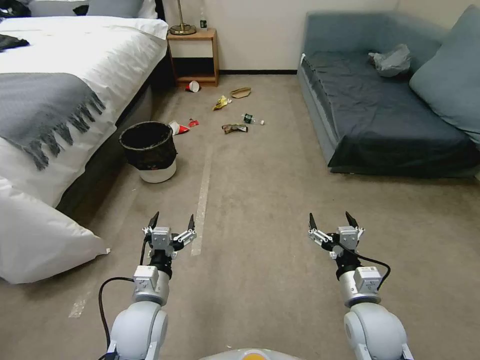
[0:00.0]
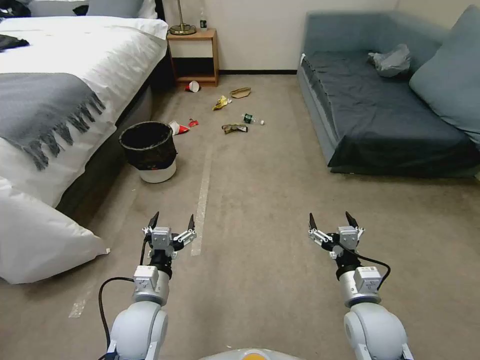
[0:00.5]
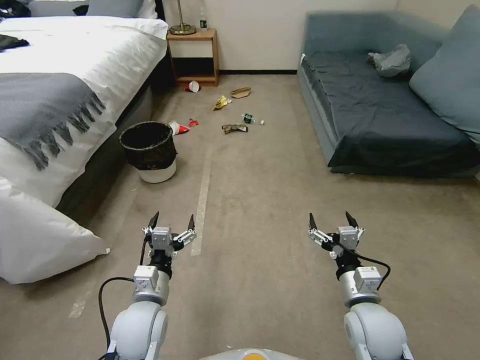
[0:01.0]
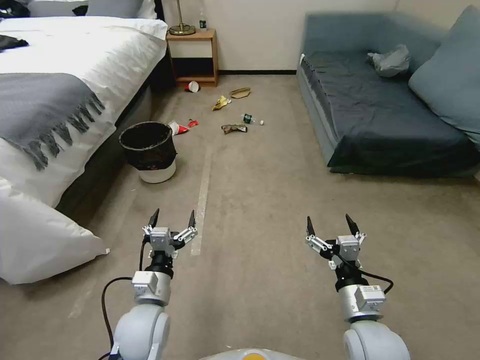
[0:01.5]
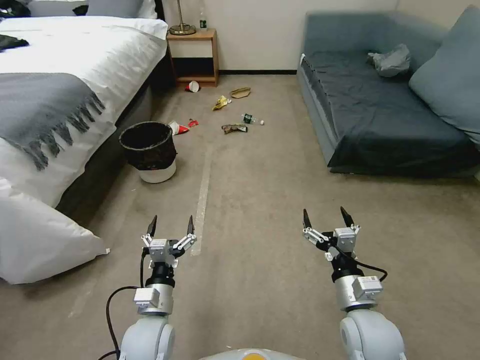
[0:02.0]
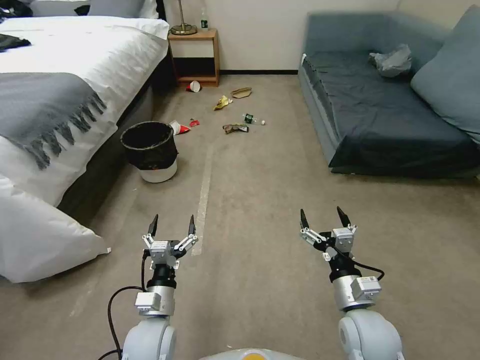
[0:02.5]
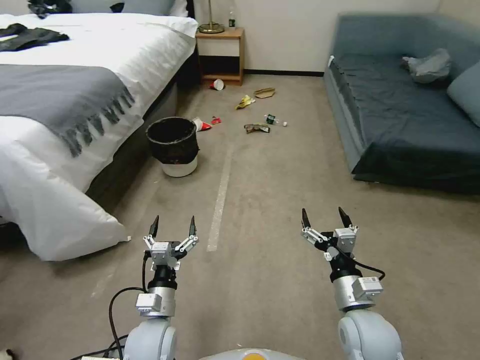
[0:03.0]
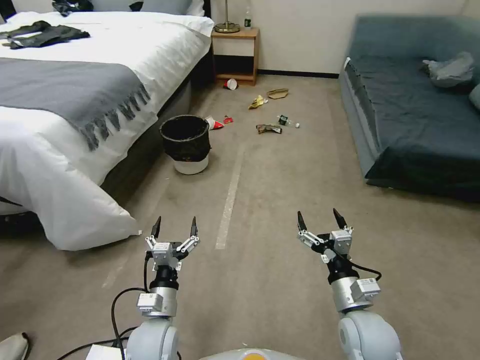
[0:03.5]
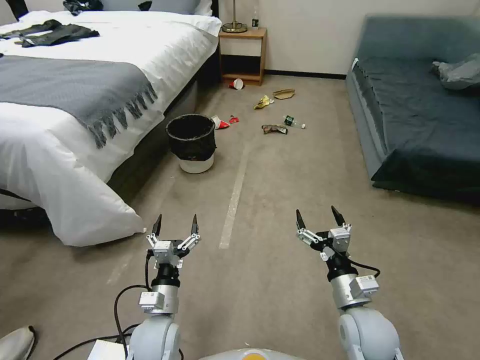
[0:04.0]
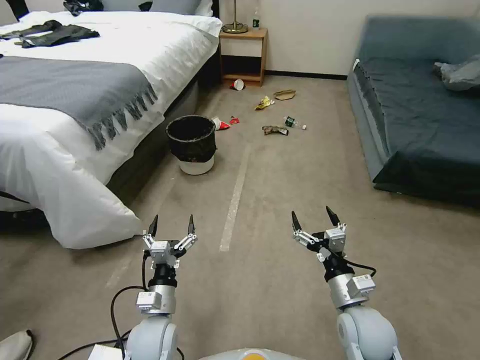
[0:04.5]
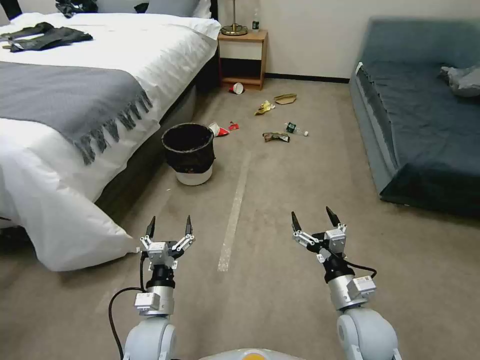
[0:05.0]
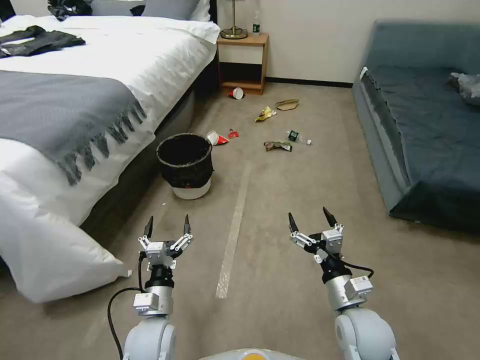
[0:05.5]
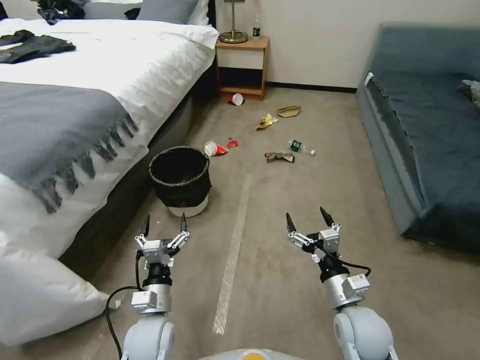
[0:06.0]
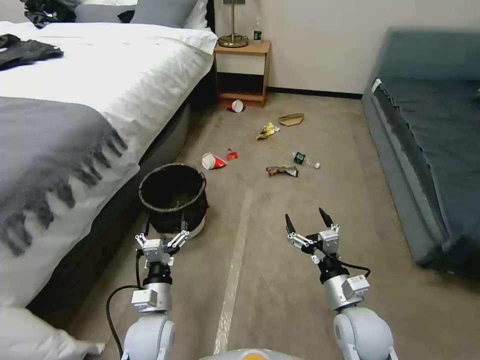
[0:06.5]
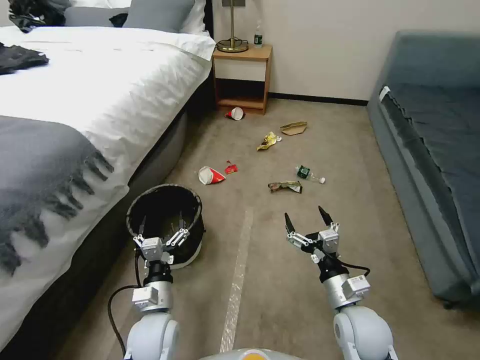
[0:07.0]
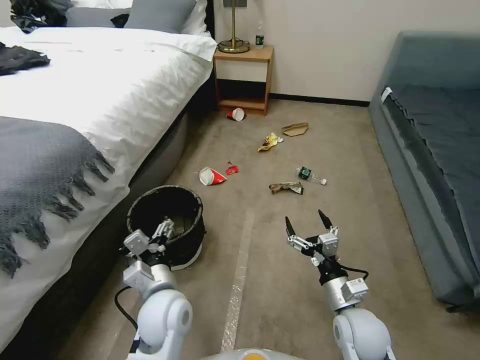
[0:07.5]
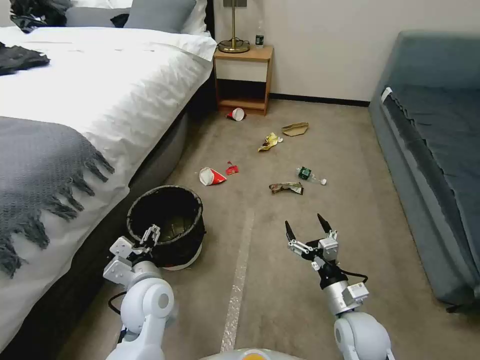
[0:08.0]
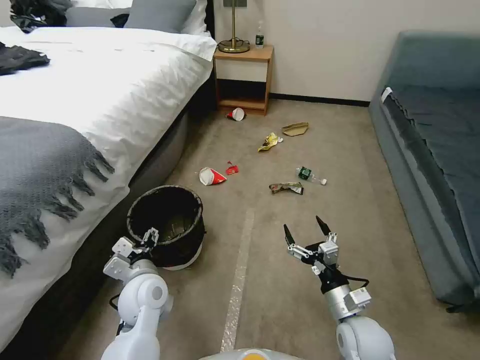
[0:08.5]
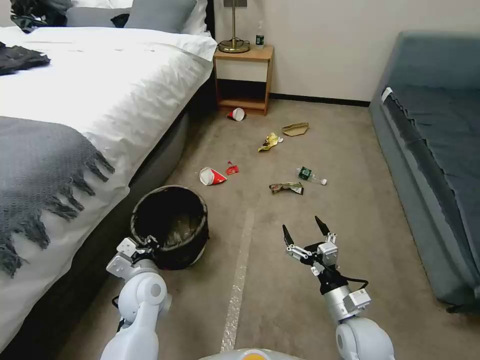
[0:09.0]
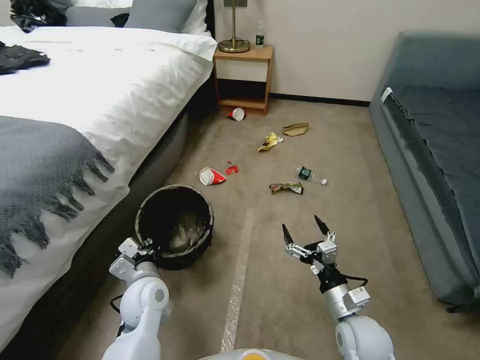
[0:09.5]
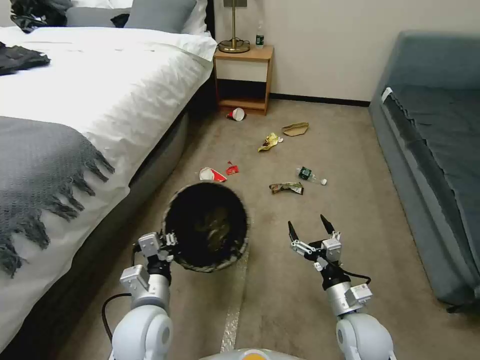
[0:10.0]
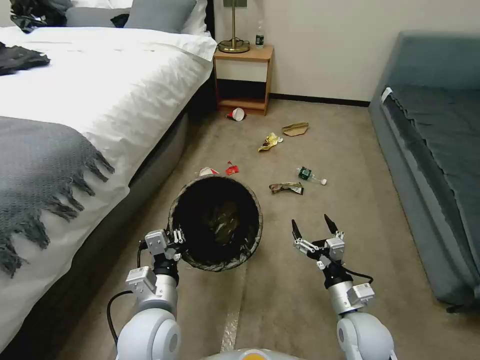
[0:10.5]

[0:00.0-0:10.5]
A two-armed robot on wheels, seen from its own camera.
Task of the whole recording: Pick up the trash can from the floor.
0:06.5 to 0:08.5: The left gripper shifts approximately 10 cm upward and forward.
0:08.5 to 0:10.5: The left gripper shifts roughly 10 cm backward, and closes up.

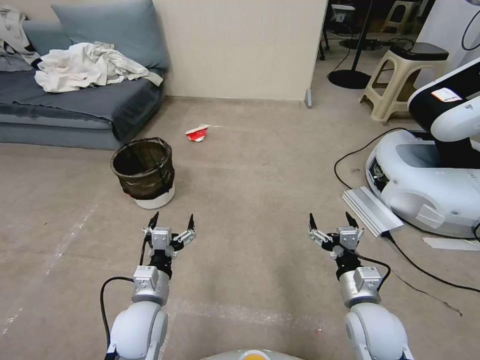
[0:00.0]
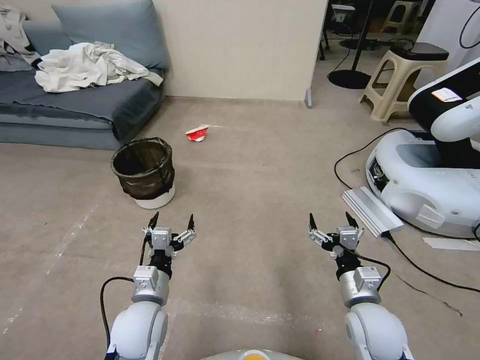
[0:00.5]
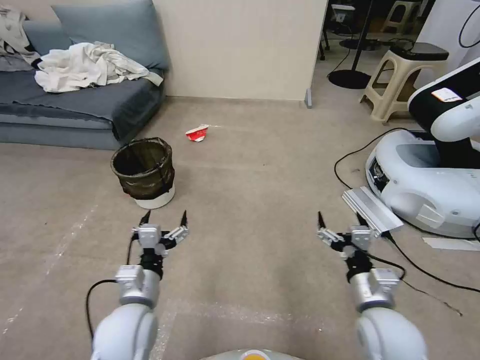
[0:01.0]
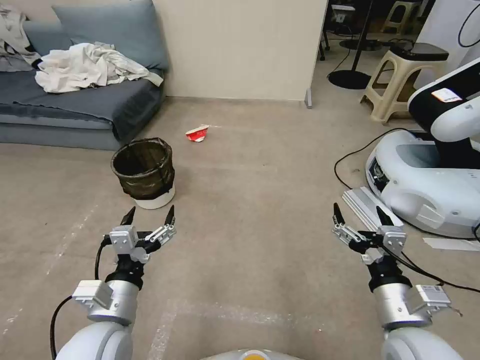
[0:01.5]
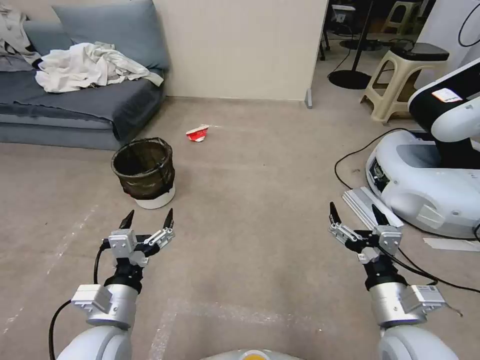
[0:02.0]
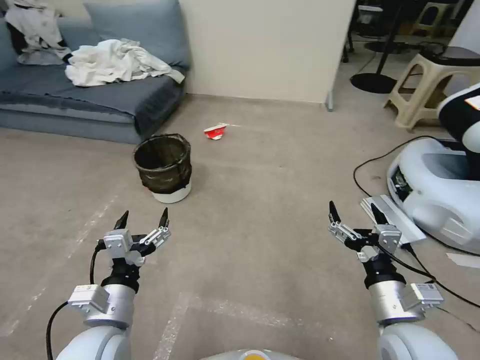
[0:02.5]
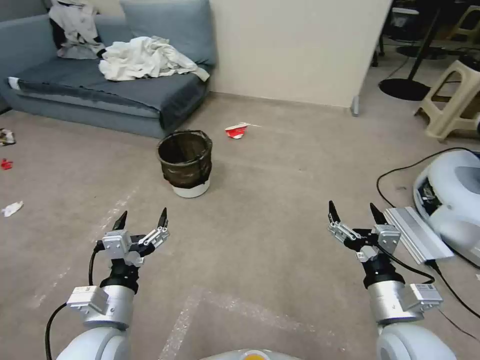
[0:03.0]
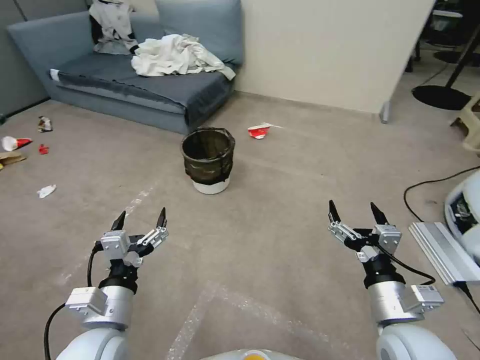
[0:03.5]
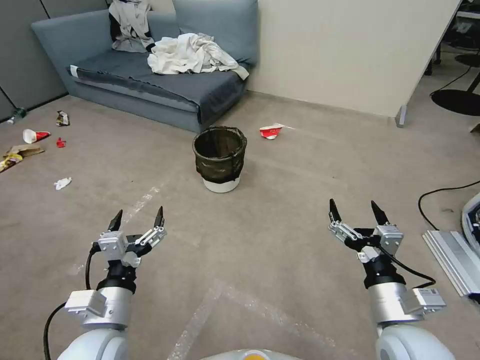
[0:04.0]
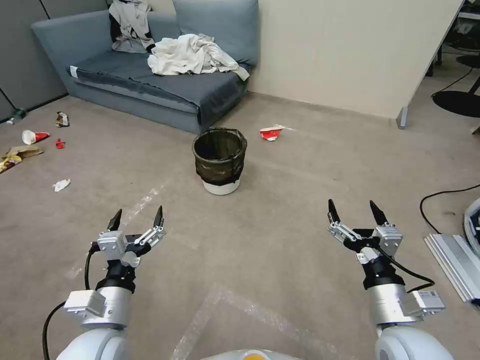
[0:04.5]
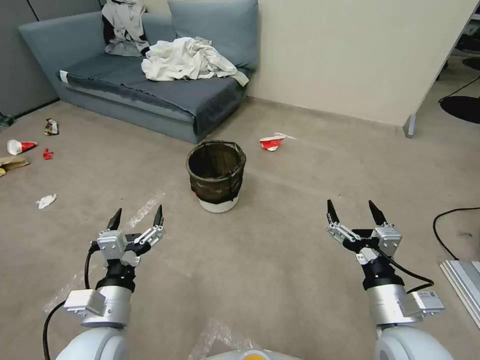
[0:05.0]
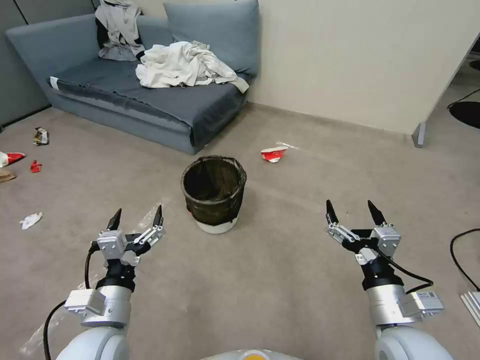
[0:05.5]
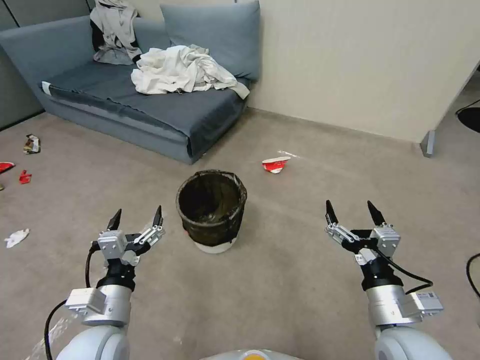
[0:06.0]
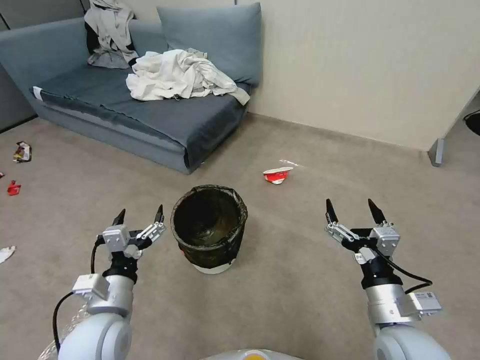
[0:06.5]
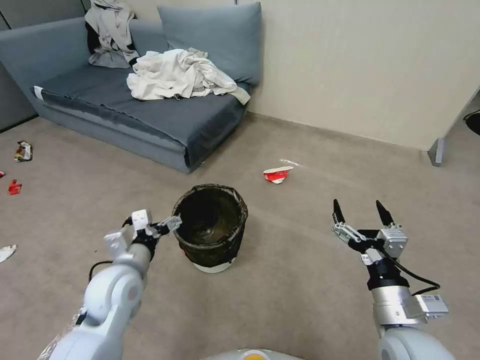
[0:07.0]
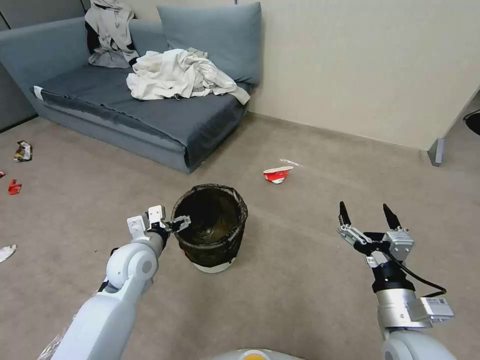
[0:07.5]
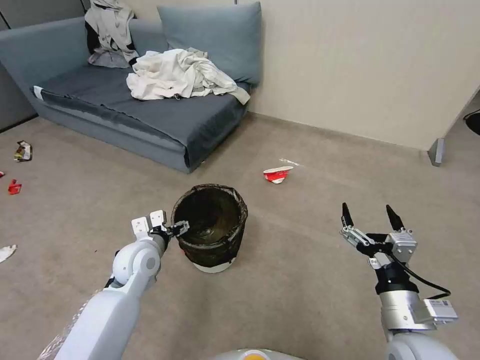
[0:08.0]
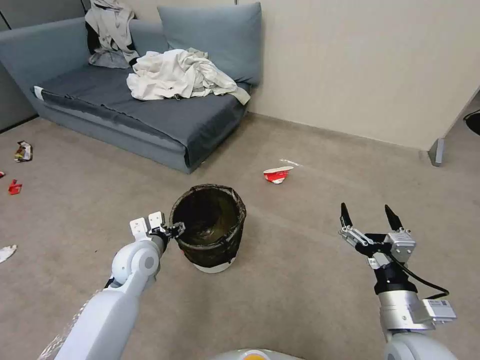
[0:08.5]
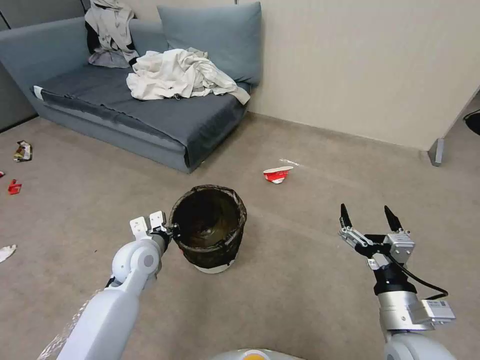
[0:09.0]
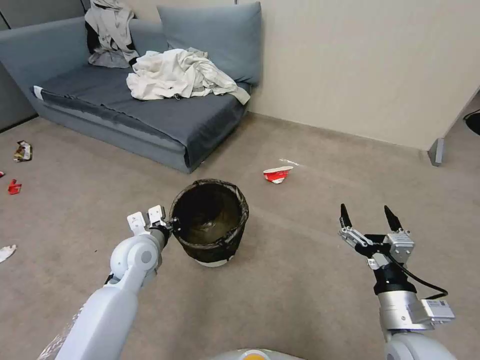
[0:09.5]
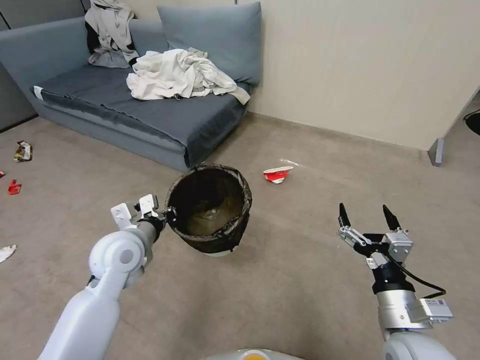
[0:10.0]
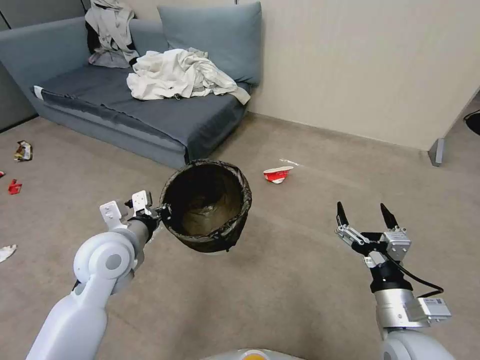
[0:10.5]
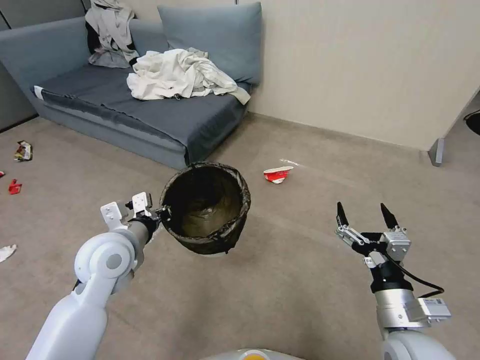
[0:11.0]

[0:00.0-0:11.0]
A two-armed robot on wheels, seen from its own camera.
Task of the whole recording: Pick up the trash can from the floor.
0:05.5 to 0:07.5: The left gripper is displaced forward by approximately 15 cm.
0:07.5 to 0:09.0: The left gripper closes.
0:09.0 to 0:11.0: The left gripper is displaced upward by approximately 10 cm.
